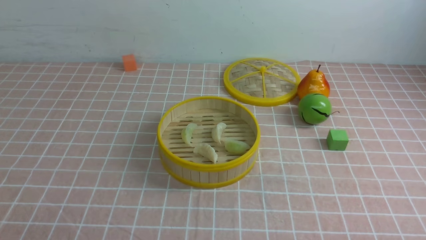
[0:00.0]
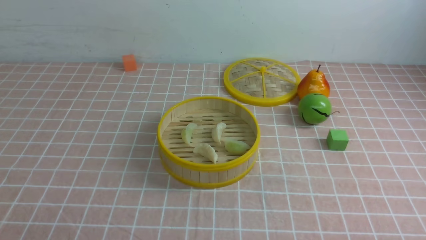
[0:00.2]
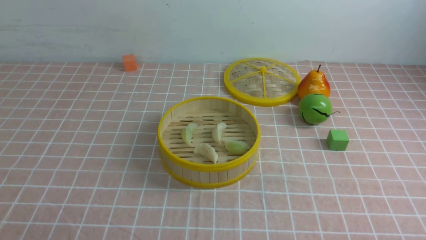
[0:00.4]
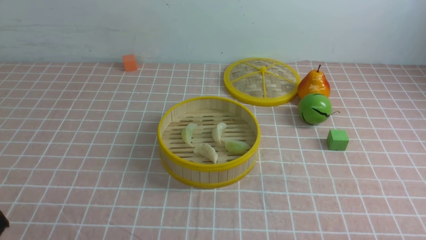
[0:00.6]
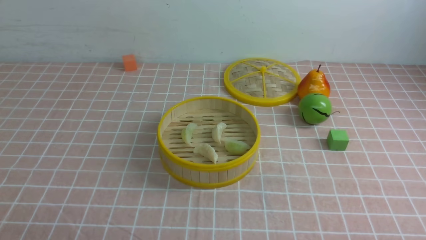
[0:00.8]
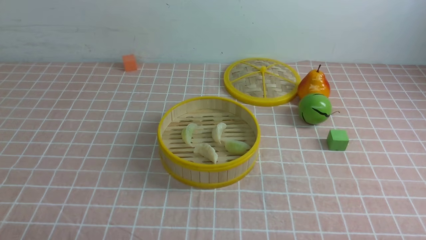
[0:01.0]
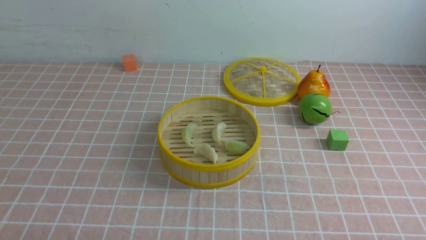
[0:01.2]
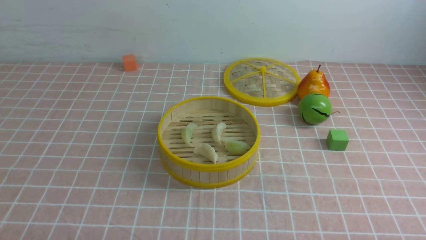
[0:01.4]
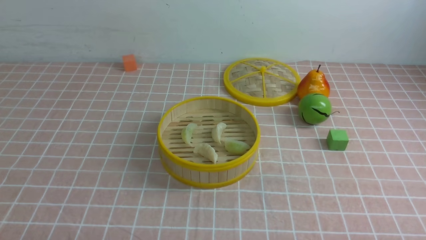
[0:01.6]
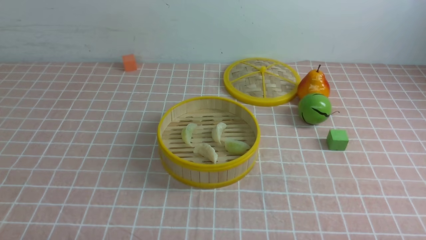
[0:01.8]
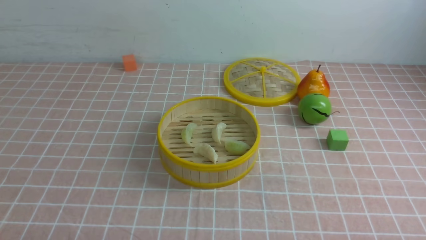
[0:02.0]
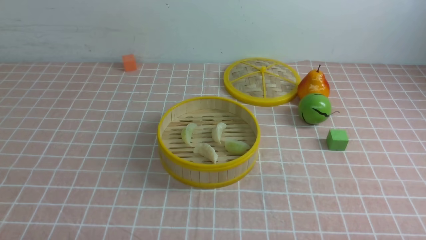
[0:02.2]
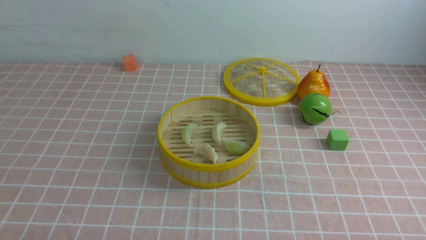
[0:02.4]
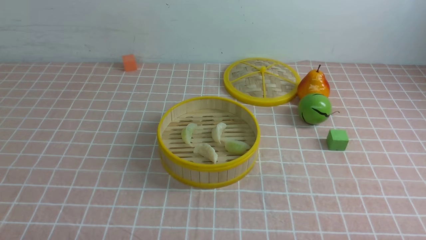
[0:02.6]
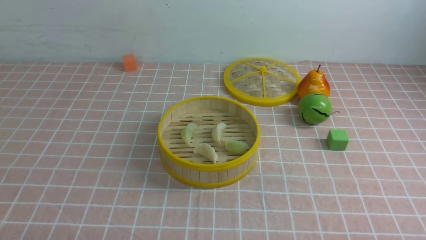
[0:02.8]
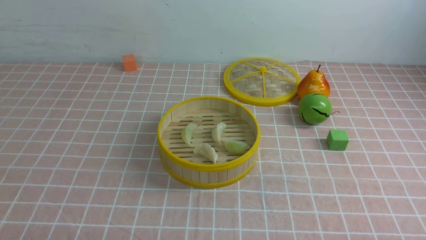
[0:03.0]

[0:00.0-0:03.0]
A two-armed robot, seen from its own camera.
Task of the whole recording: put the dumplings into the steamer on the table with the pink tablecloth.
0:01.6 to 0:03.0: Both grippers stay about where they are.
